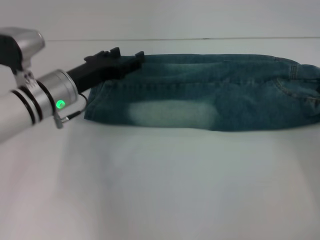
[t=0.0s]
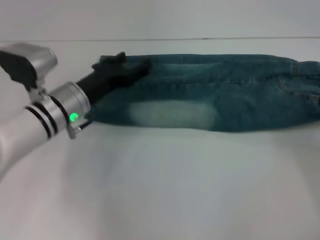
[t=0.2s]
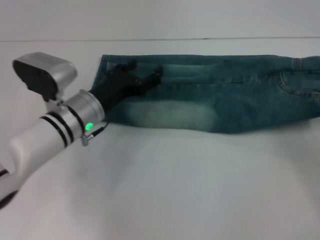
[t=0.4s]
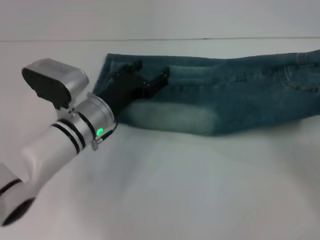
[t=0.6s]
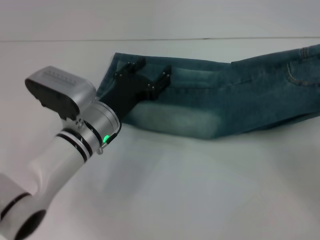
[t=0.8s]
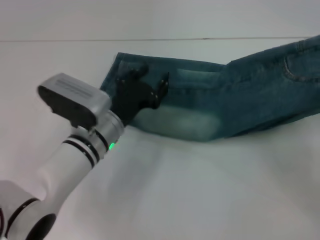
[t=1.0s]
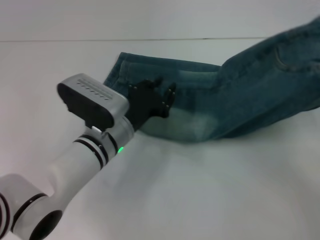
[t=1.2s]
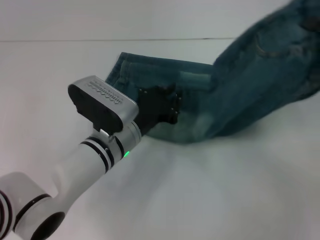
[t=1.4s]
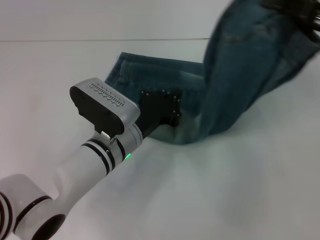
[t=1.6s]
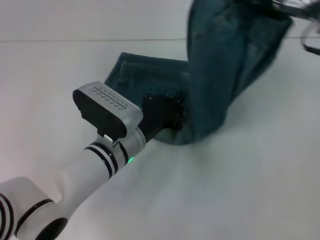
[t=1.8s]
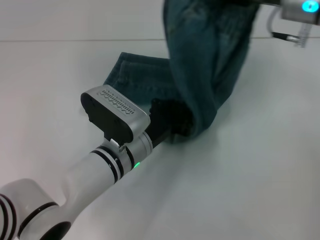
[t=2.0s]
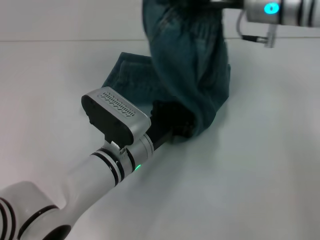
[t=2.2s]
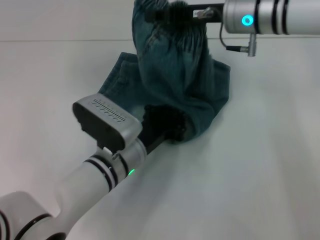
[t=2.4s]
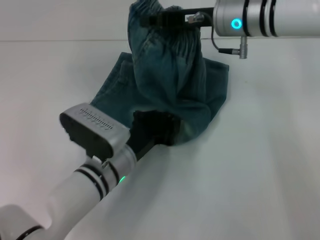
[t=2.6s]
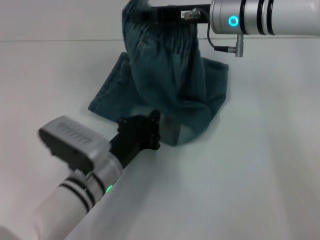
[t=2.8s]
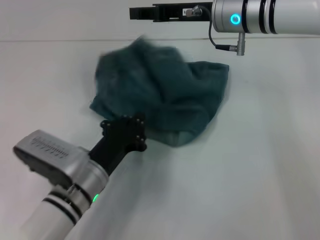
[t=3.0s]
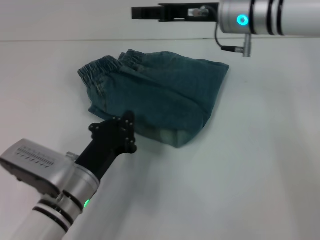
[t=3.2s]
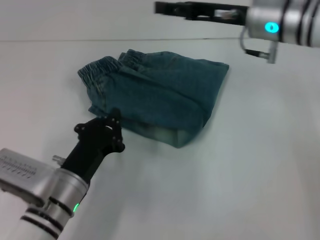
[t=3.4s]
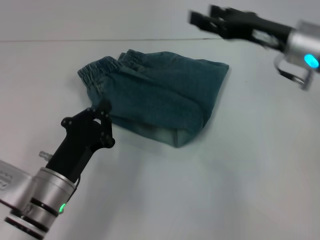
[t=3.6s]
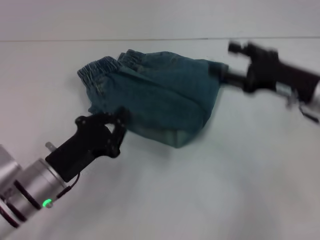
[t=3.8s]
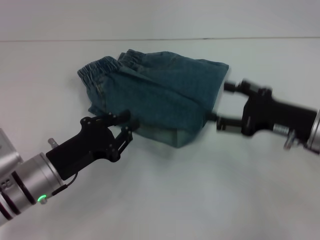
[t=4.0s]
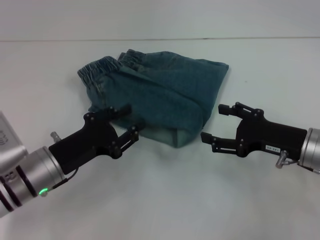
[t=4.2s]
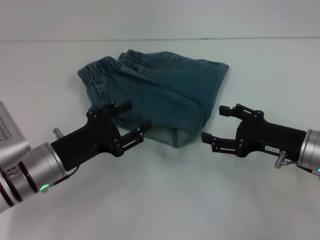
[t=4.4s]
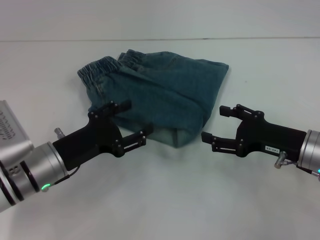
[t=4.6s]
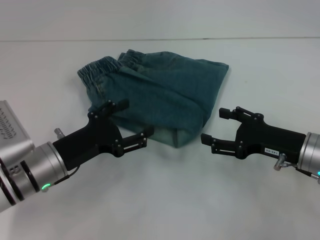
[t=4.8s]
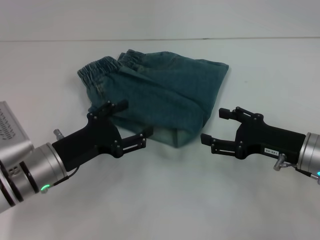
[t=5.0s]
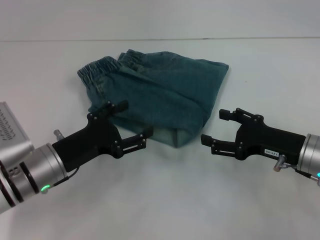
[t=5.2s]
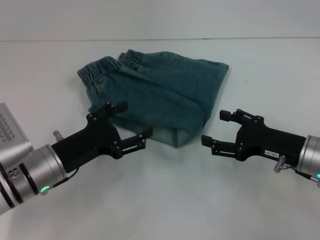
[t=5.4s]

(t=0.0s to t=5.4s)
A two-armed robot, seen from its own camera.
Step, t=0.4s - t=2.8s: Press the middle of the pants with your left hand.
Step, t=3.0s - t=3.4s: Fold to the left with your right hand.
t=0.0s - t=1.4s: The left gripper goes about 10 cm to the right, backward and downward, and closes its fingers, while the right gripper shifts about 10 cm upward.
t=1.4s - t=2.8s: The left gripper changes place by some 5 cm. The right gripper is displaced to the left and forward by approximately 25 cm.
t=2.8s - t=4.0s: The left gripper is displaced to the left by roughly 10 cm; the right gripper is displaced backward, to the right and downward by about 20 cm, and opens its fingers.
t=4.0s - t=5.4s: The left gripper opens its fingers.

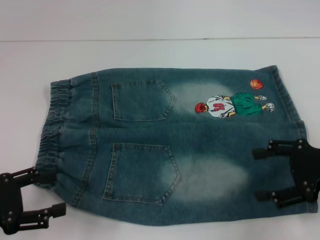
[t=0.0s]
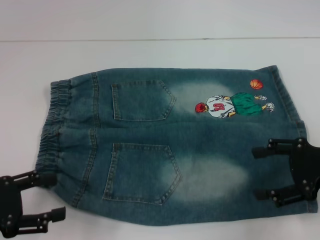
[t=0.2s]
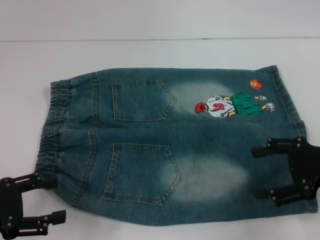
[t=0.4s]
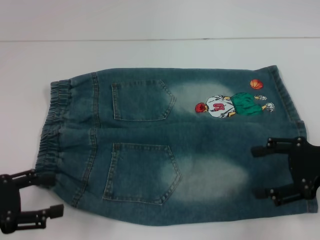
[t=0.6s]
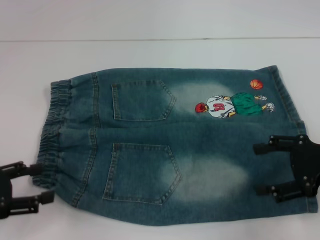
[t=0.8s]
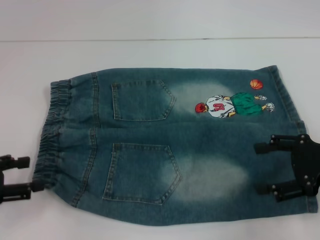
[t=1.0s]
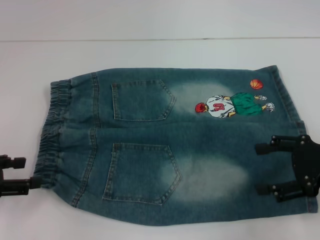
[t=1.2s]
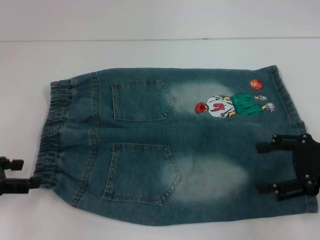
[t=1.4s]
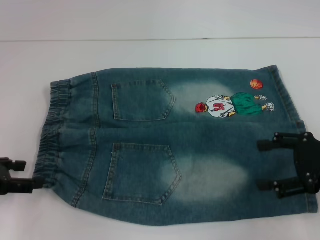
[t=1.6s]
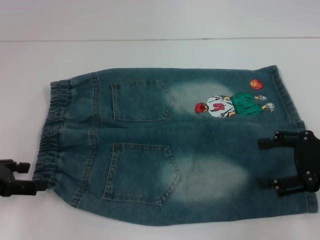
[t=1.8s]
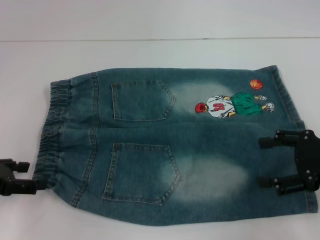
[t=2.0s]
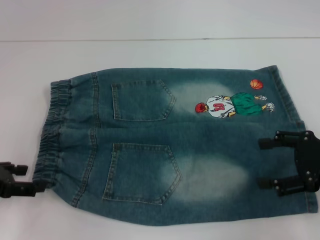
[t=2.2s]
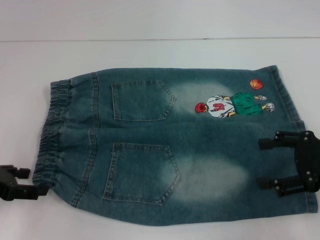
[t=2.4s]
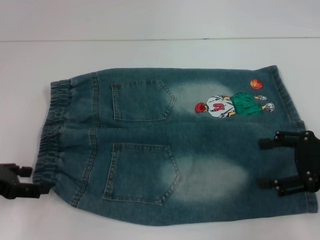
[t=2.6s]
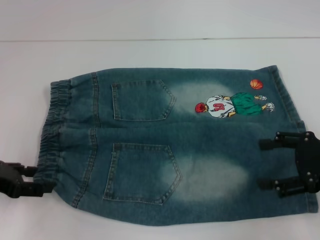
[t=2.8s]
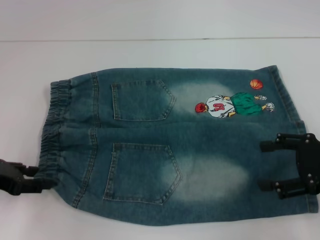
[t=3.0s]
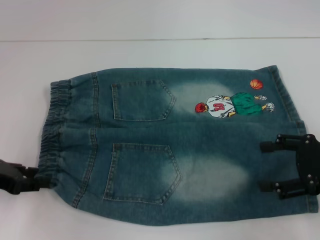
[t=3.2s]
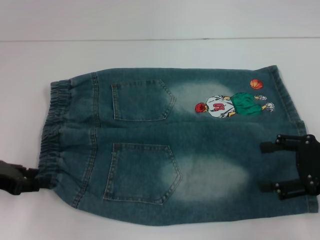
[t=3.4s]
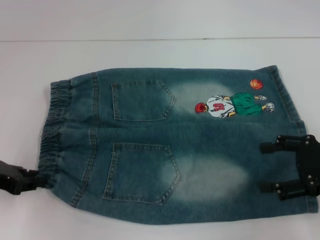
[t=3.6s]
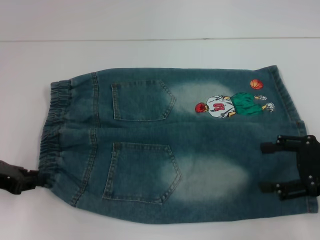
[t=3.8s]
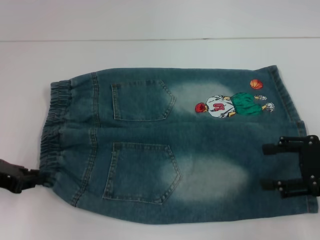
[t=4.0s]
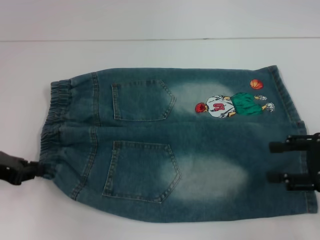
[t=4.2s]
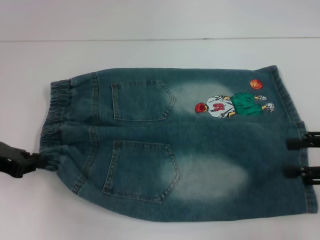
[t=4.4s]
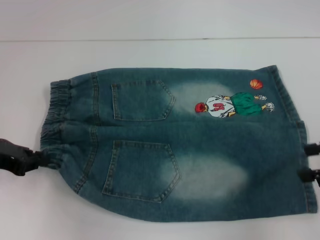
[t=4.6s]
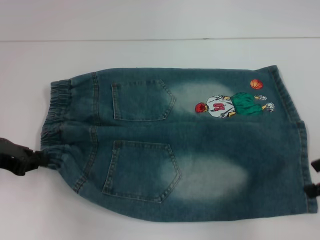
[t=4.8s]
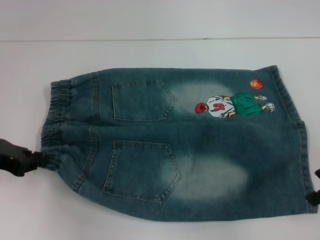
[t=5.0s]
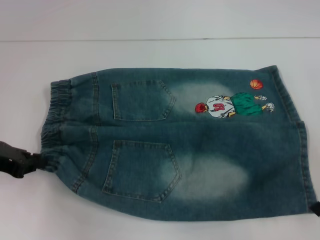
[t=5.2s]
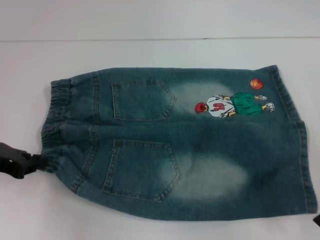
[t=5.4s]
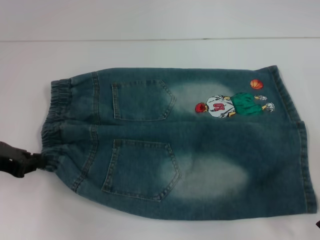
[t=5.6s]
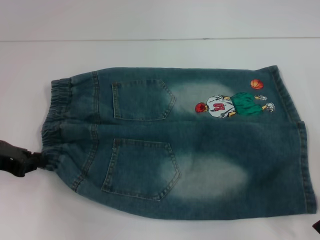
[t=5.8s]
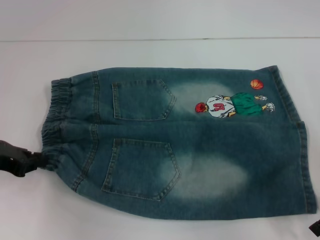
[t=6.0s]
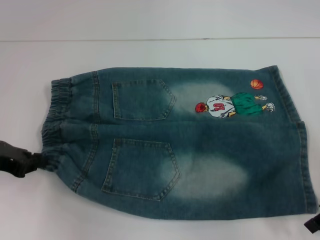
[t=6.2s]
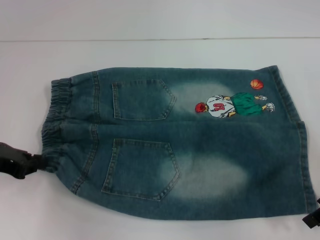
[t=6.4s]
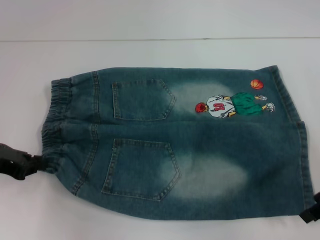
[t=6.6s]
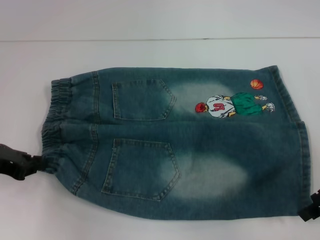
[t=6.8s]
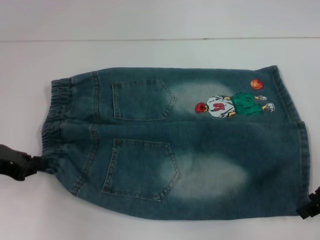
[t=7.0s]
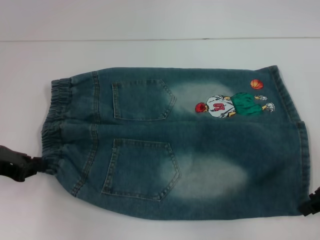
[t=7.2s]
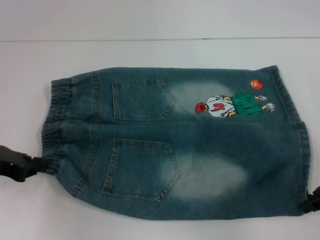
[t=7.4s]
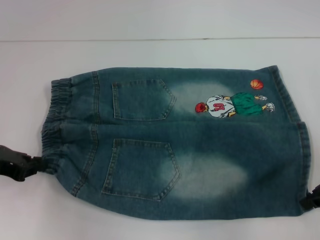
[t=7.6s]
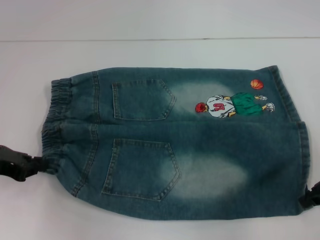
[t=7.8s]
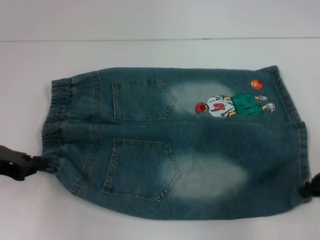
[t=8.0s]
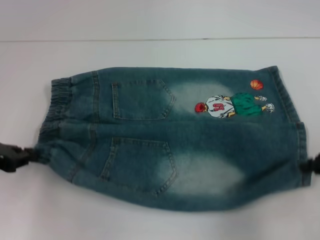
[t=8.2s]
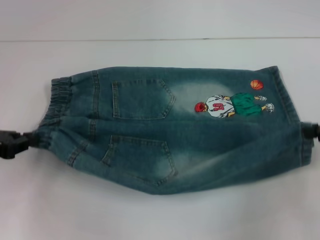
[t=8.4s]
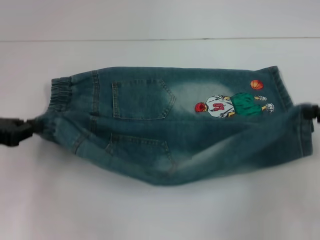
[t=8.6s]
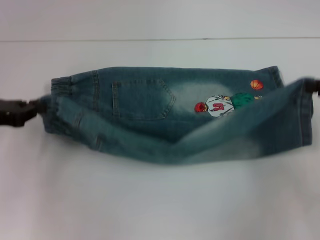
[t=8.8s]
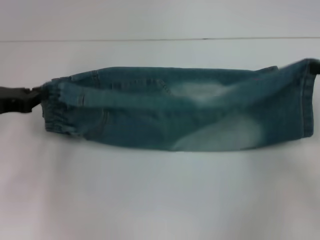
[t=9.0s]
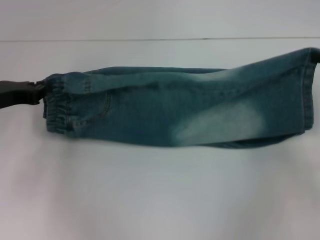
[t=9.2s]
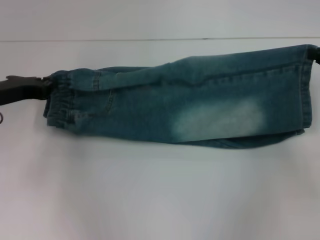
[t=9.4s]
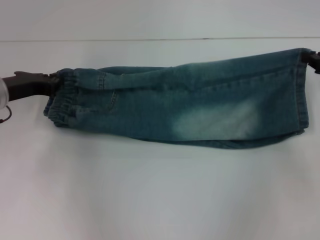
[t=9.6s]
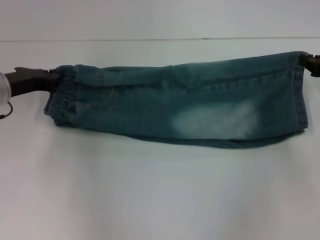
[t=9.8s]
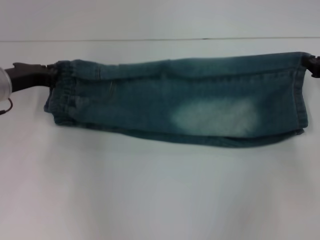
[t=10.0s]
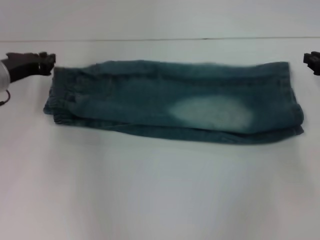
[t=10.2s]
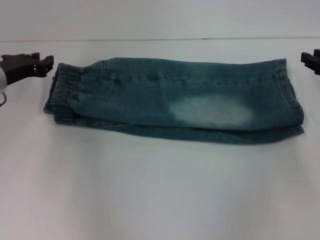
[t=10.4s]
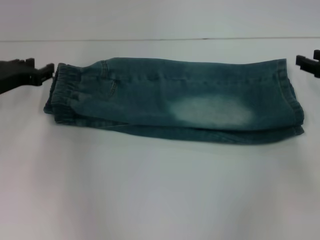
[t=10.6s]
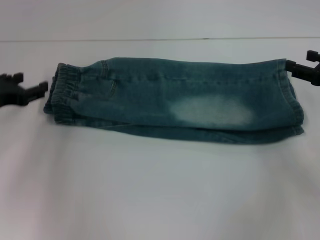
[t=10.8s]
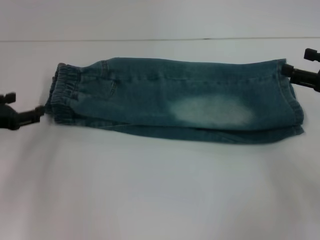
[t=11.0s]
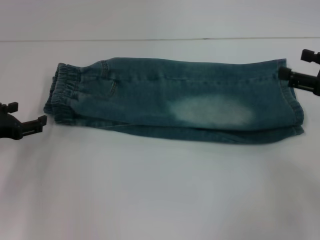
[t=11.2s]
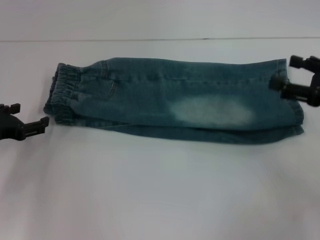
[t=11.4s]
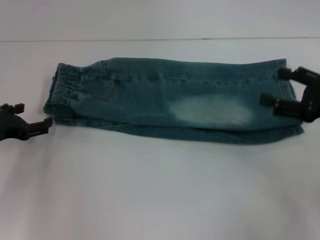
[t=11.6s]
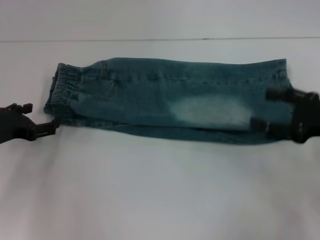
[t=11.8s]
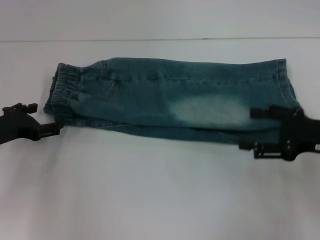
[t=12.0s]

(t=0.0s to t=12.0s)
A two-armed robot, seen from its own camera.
Step, t=0.0s - t=4.0s: Hold the lower left waistband with your left hand.
Step, t=4.2s - t=7.8s: Grab the lower right pant leg with your right hand.
Step, t=8.0s - t=10.2s: Fold upward with your right hand.
t=0.0s - t=1.6s: The left gripper goes about 5 cm forward.
t=1.6s - t=3.0s: The grippers stay close to where they were, moving slightly.
t=3.0s - t=4.4s: The left gripper closes up.
t=6.0s - t=7.6s: The right gripper closes its fingers.
t=7.6s - t=9.0s: The right gripper travels to the right by approximately 5 cm.
t=9.0s - t=10.4s: Both grippers move forward, roughly 5 cm.
t=10.4s - t=12.0s: Both grippers travel together backward, some 10 cm. The left gripper opens; the right gripper opens up.

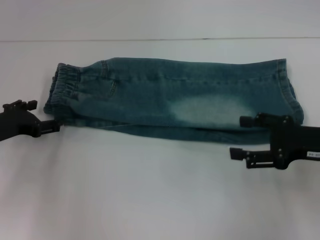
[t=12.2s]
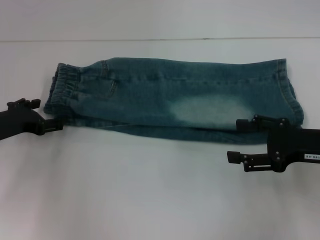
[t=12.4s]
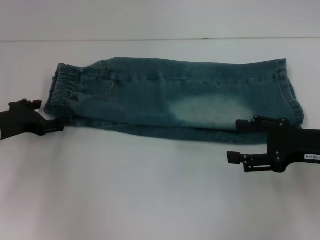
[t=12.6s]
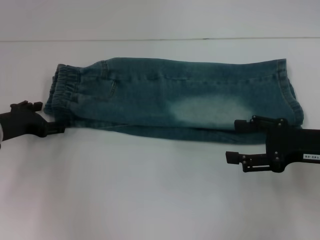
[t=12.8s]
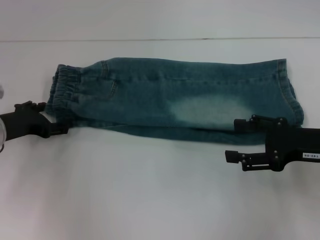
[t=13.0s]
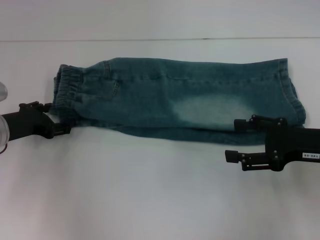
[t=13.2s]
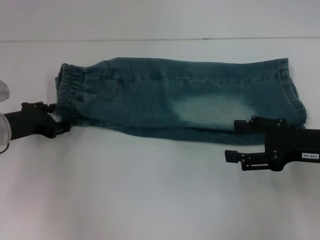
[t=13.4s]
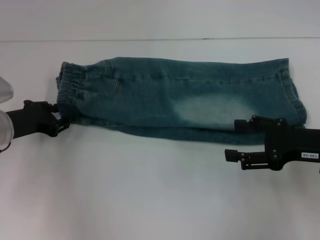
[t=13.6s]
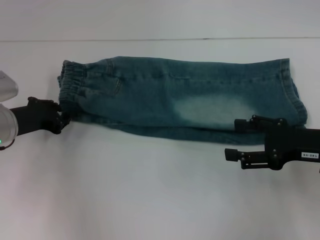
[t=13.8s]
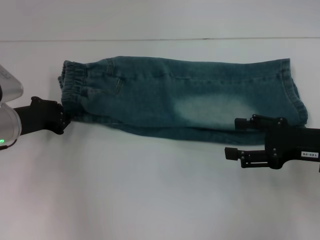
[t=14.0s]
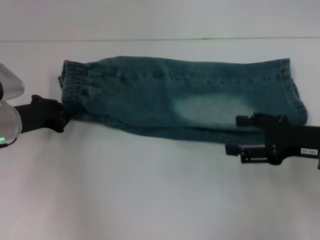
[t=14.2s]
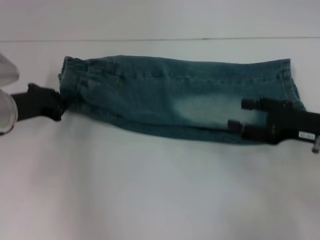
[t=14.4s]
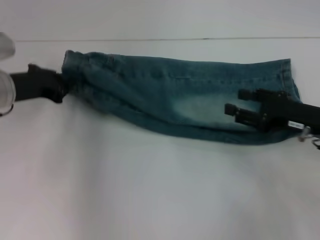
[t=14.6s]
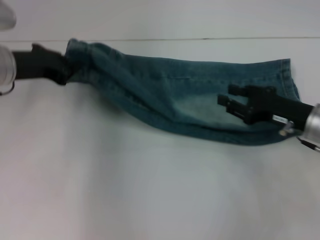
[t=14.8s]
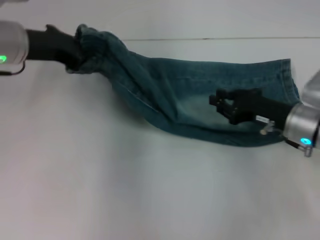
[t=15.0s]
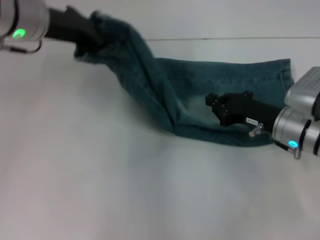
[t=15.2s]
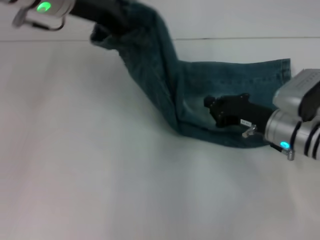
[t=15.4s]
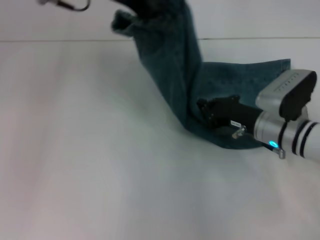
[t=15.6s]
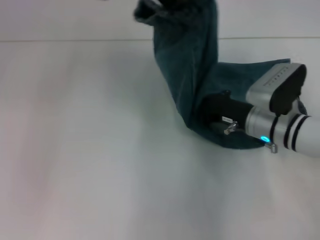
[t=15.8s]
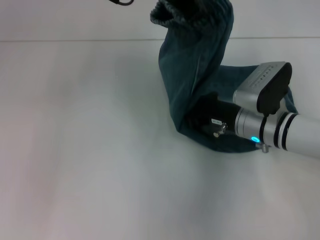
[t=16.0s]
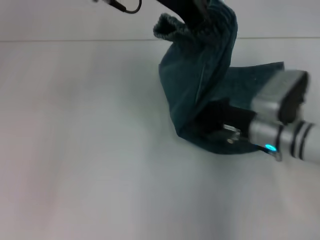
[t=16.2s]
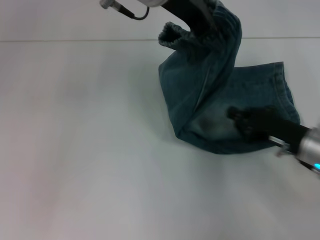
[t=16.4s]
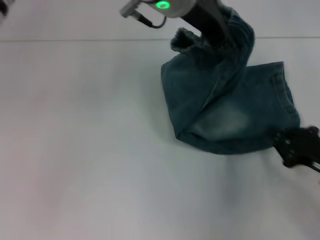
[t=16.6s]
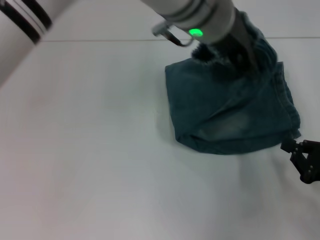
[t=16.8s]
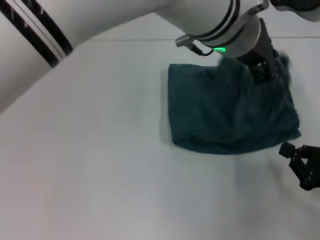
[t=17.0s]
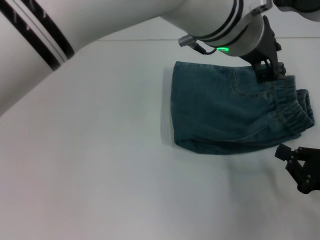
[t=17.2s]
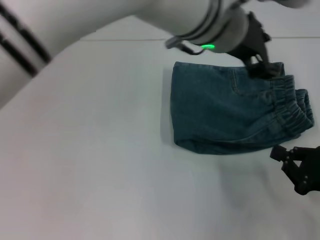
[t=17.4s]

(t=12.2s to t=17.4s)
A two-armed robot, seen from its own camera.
Step, t=12.2s - t=14.2s: Grab the waistband with your right hand.
Step, t=14.4s - t=16.0s: Press the middle of the pants with your left hand.
Step, t=16.2s - t=17.0s: Fold to the left with your right hand.
t=12.2s - t=14.0s: The left gripper closes.
t=14.0s - t=15.6s: The right gripper moves to the left, downward and forward, roughly 10 cm, and closes up. Meanwhile the left gripper is displaced upward and to the right by approximately 30 cm.
t=15.6s - t=17.4s: The left gripper travels to the right by some 15 cm; the right gripper goes about 20 cm backward and to the right.
